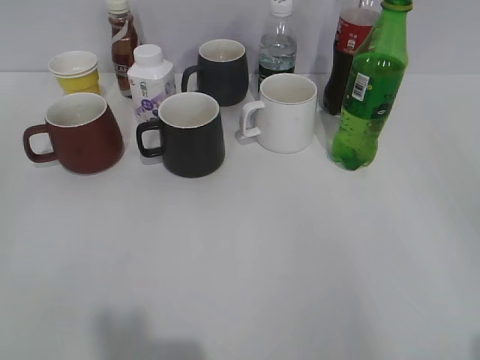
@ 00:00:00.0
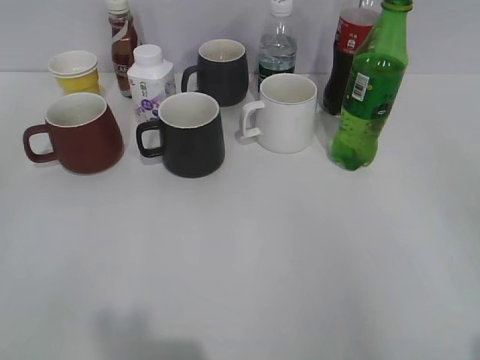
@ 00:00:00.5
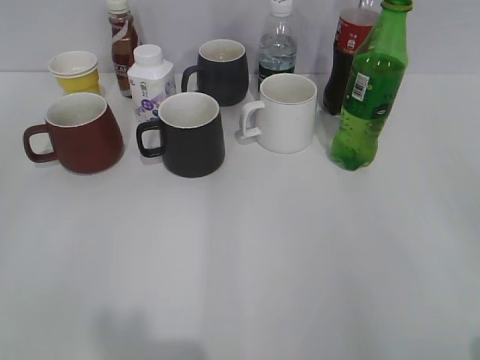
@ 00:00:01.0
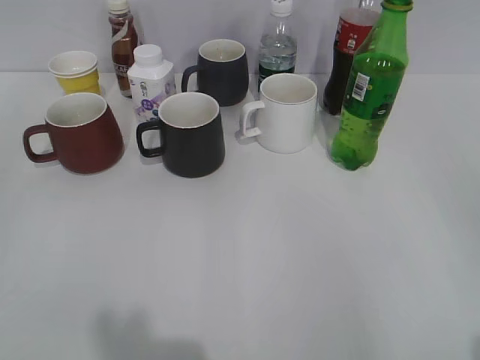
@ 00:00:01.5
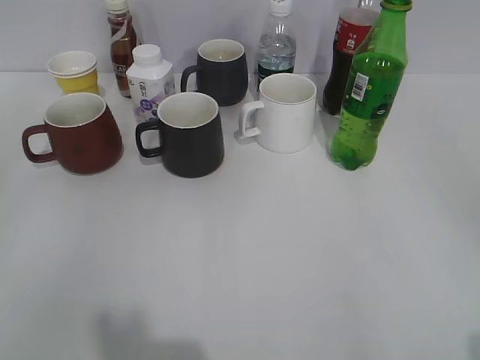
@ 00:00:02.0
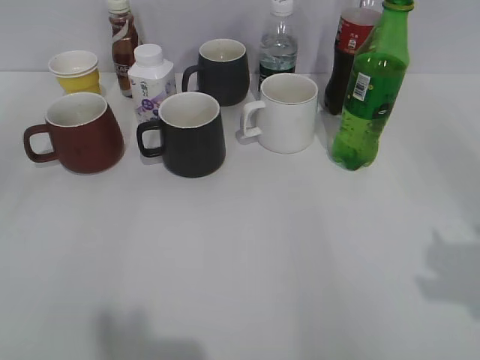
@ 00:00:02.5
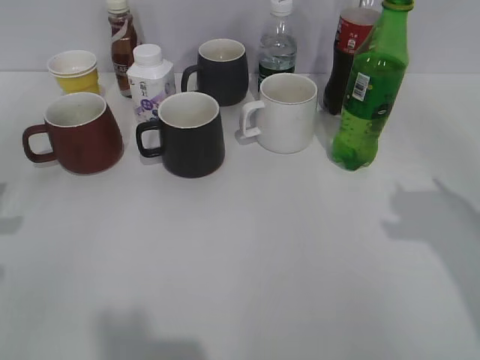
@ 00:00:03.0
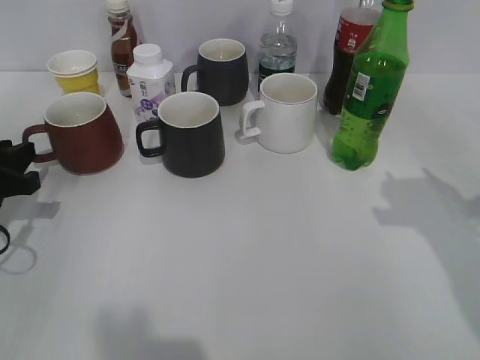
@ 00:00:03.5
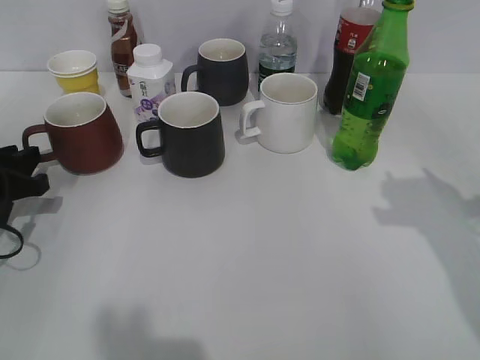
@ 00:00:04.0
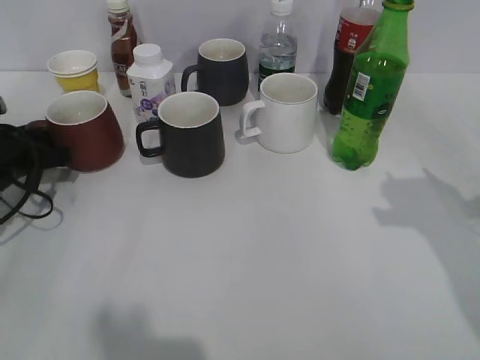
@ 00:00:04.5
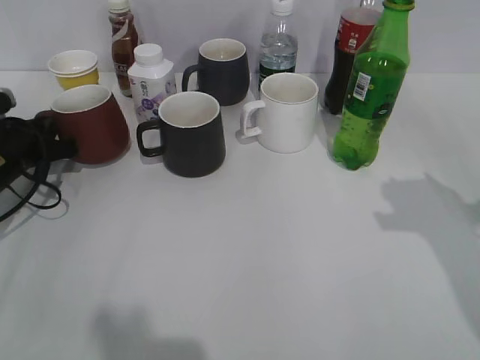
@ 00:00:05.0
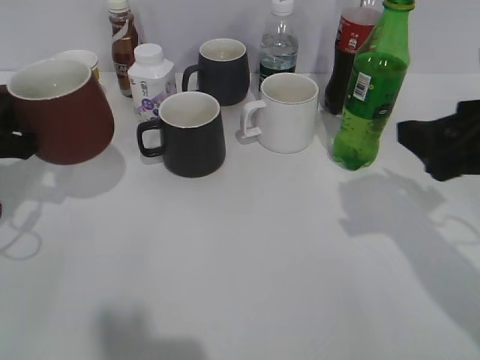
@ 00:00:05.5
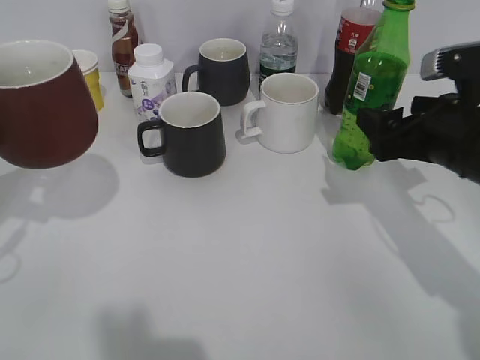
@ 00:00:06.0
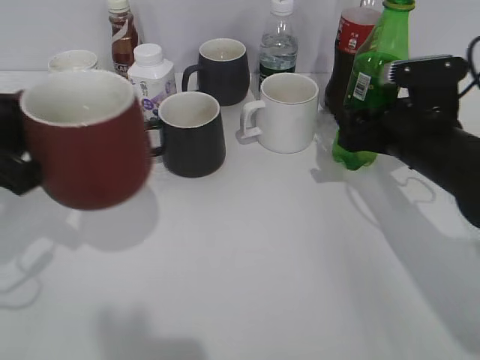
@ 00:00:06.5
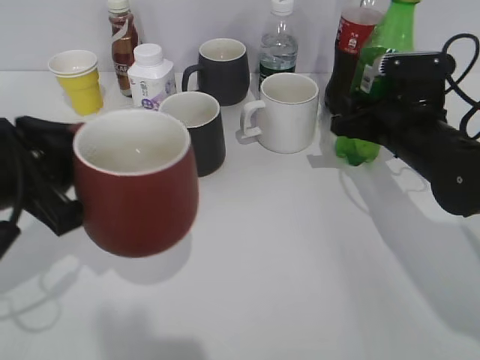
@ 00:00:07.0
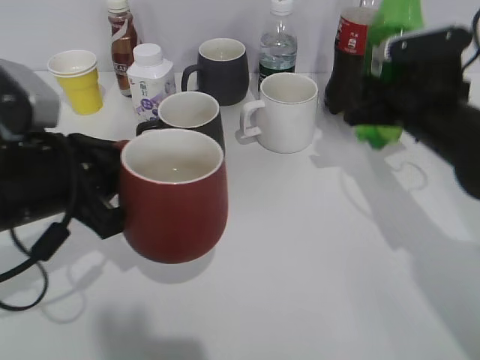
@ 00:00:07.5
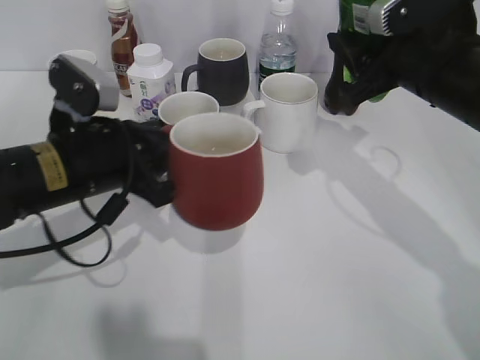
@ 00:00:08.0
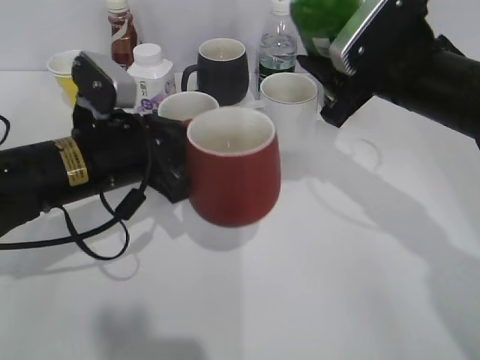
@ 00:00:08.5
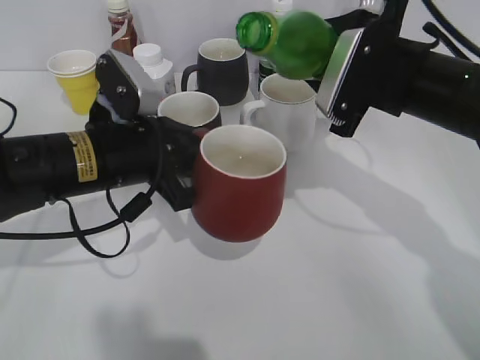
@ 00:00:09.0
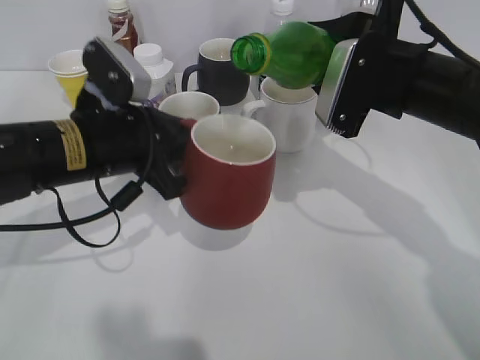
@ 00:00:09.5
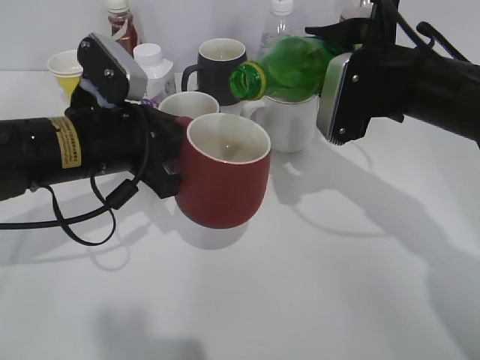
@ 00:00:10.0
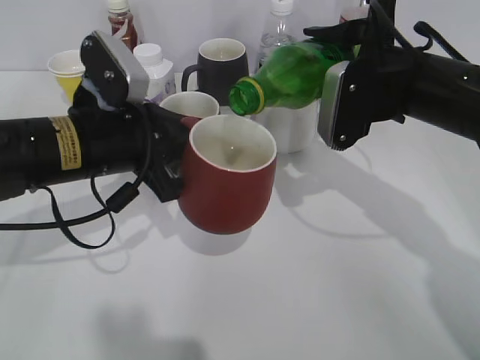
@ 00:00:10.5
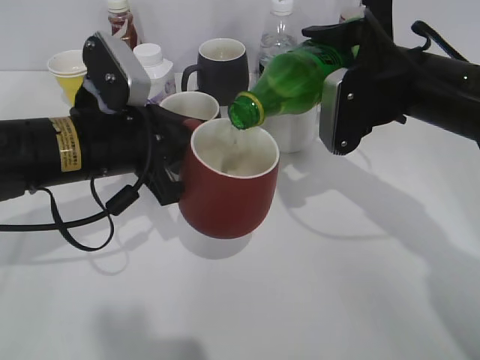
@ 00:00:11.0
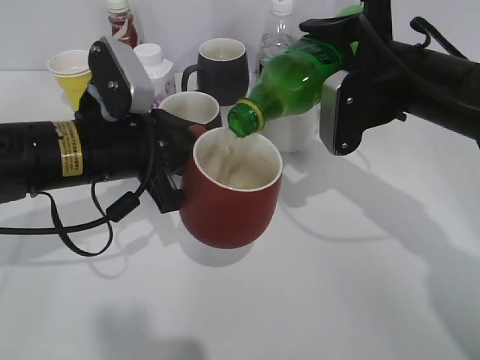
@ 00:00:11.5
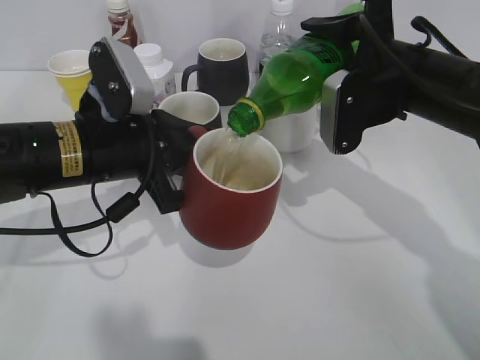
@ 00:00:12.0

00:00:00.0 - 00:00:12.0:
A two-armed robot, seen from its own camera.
Step, 00:00:02.0 - 00:00:04.5: Grasp the red cup with left gripper.
Step, 00:00:05.5 - 00:00:06.5: Grasp the bottle with sprite with right gripper.
00:00:02.0 - 00:00:04.0: The left gripper travels forward and downward by approximately 30 cm. The right gripper shifts about 20 cm forward.
00:00:04.0 - 00:00:06.0: The left gripper shifts roughly 15 cm upward and backward, and closes up. The right gripper moves downward, forward and to the left, about 10 cm, and opens up.
00:00:06.0 - 00:00:08.0: The left gripper is displaced to the right and downward by some 15 cm, while the right gripper ends up approximately 5 cm from where it was, and closes its fingers.
00:00:10.0 - 00:00:12.0: There are only small adjustments of the grippers.

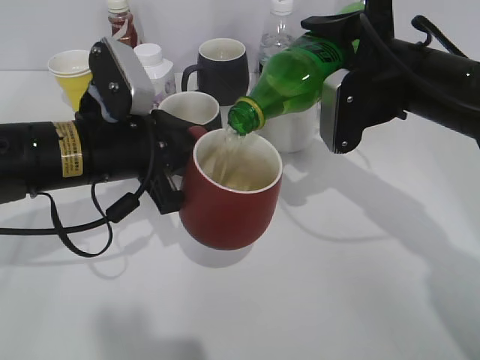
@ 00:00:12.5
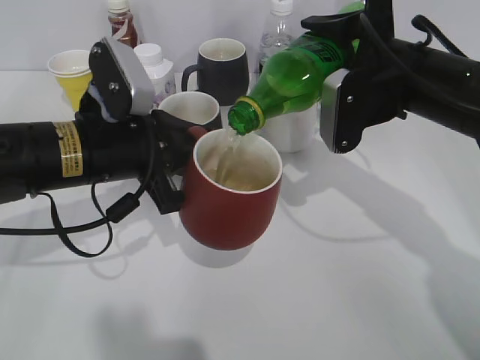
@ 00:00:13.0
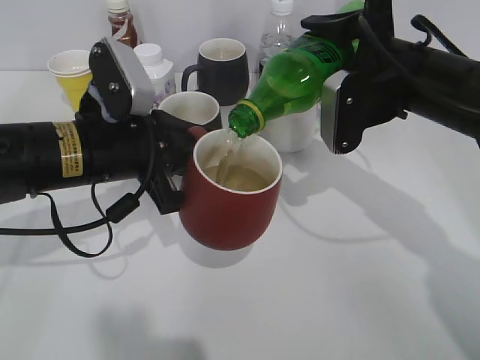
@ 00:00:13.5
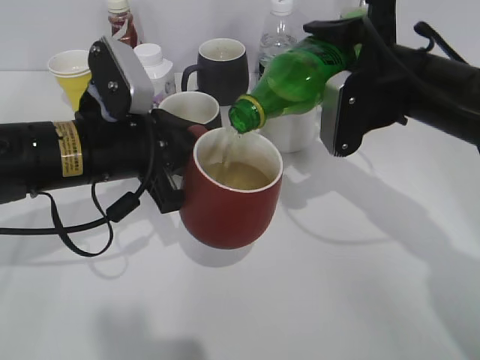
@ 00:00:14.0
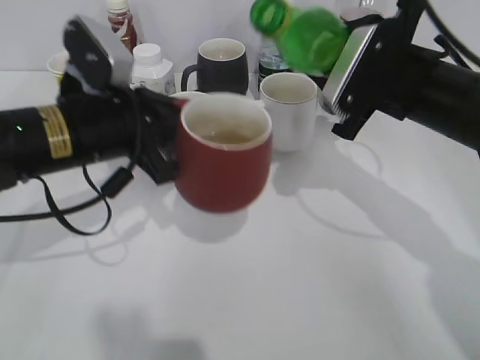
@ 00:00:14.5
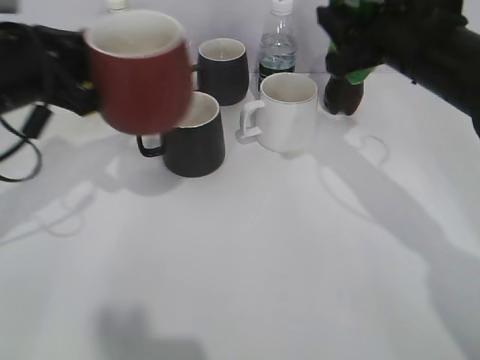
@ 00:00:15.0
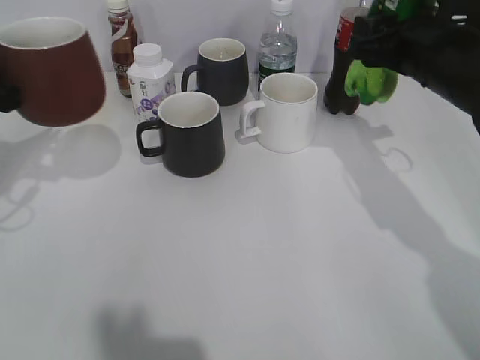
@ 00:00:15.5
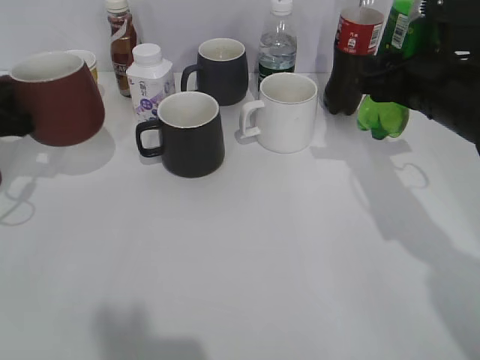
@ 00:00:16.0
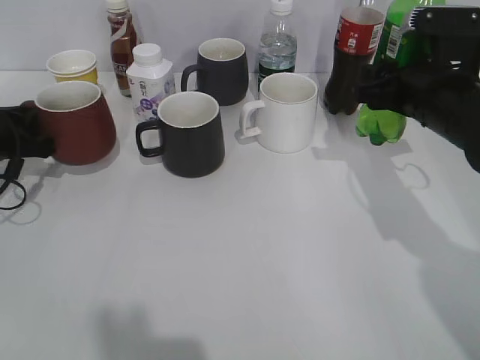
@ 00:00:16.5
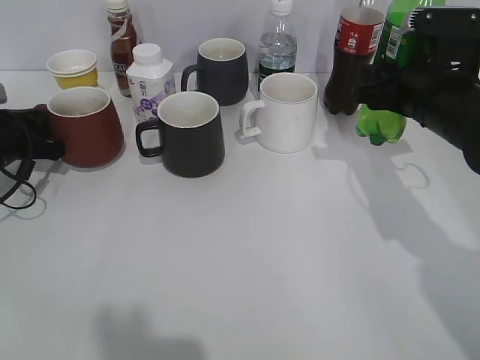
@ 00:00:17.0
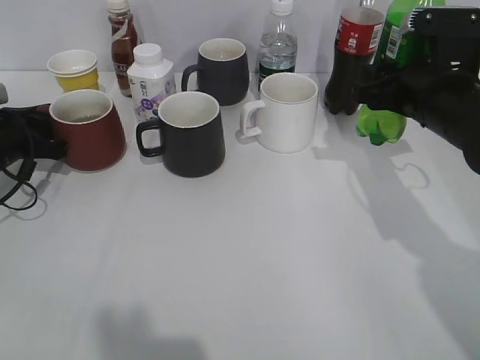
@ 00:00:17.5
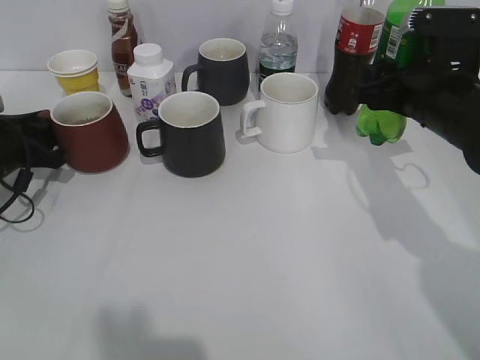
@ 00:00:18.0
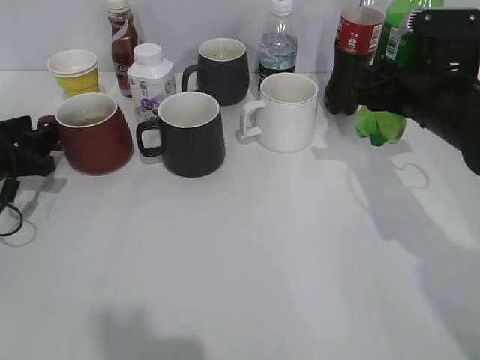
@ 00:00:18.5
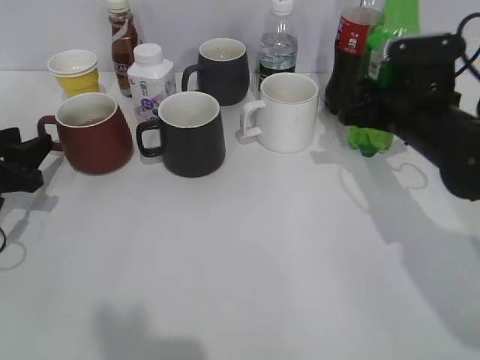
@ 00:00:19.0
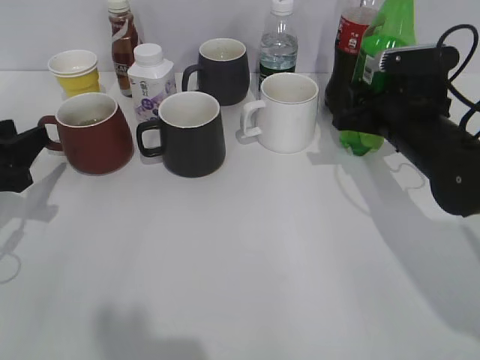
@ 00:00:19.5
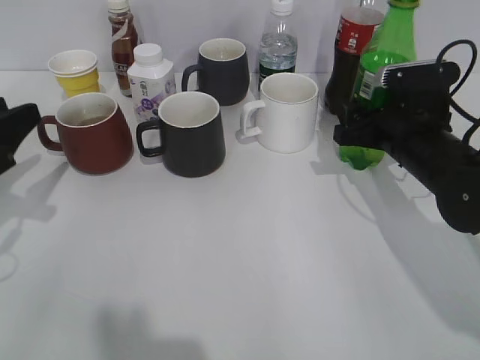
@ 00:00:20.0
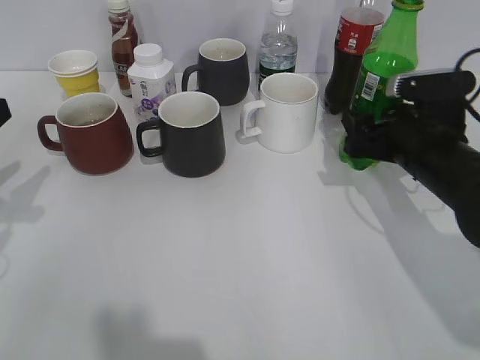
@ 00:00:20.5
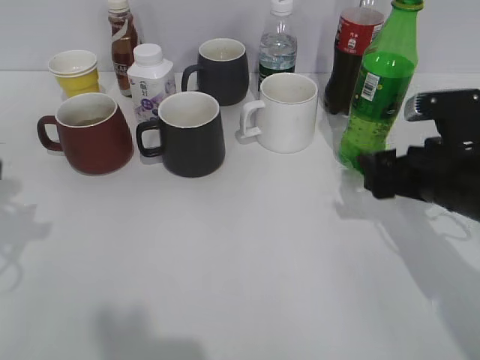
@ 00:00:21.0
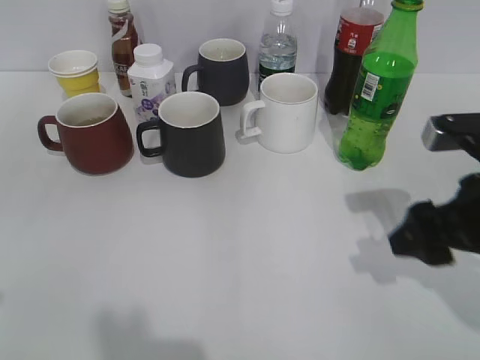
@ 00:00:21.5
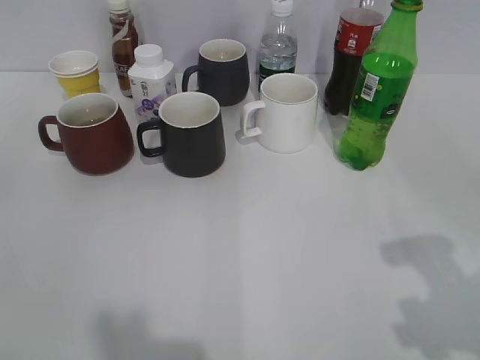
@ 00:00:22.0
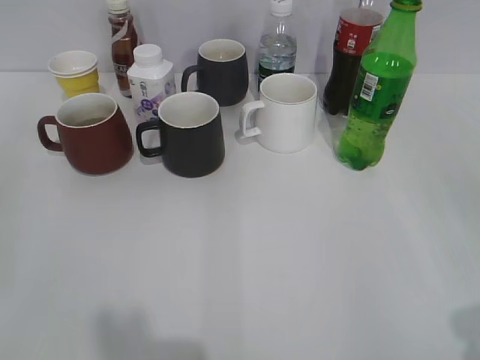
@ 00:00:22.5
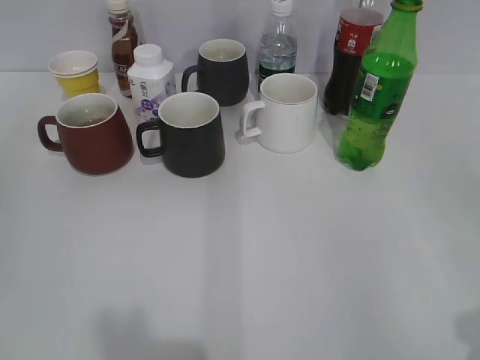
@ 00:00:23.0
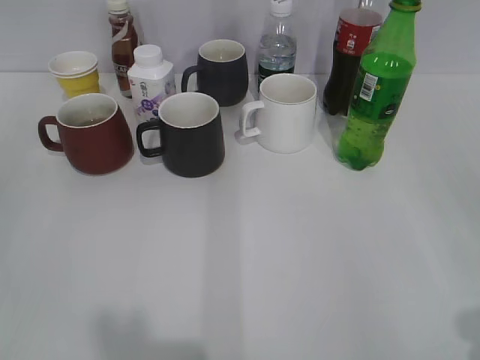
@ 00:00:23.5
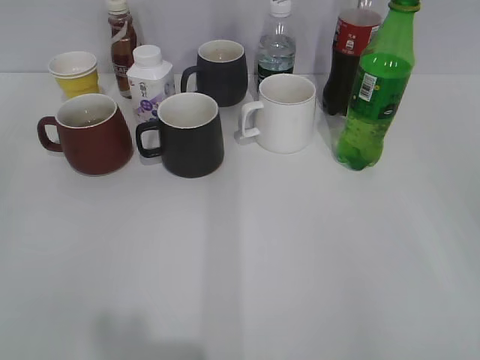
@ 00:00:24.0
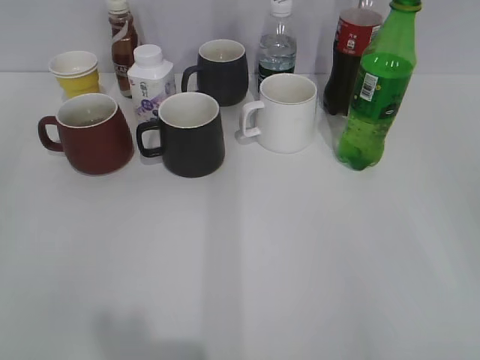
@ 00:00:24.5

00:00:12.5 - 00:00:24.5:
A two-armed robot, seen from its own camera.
Step, 00:00:14.5 - 00:00:18.0: Place the red cup on the table with left gripper.
Step, 00:00:18.5 - 00:00:20.5: Place the sprite bottle on the table with right gripper.
00:00:14.5 - 00:00:16.5: The right gripper ends up about 5 cm from where it was. The left gripper heads to the left and downward, covering approximately 20 cm.
00:00:16.5 - 00:00:18.5: The left gripper opens.
00:00:18.5 - 00:00:20.5: The right gripper moves downward, approximately 5 cm, and opens its fingers. Meanwhile the left gripper goes roughly 15 cm upward and backward.
00:00:20.5 - 00:00:22.5: The right gripper heads backward and upward, covering about 30 cm.

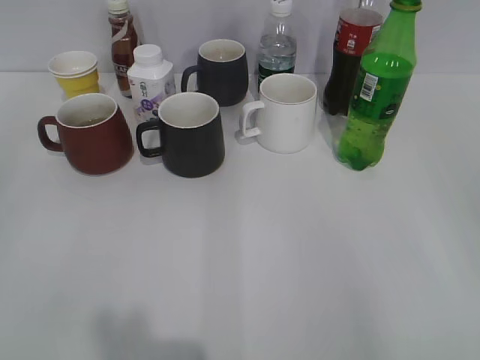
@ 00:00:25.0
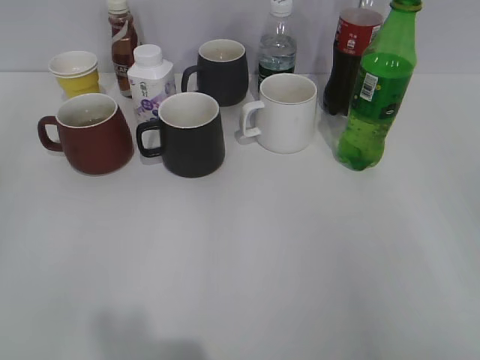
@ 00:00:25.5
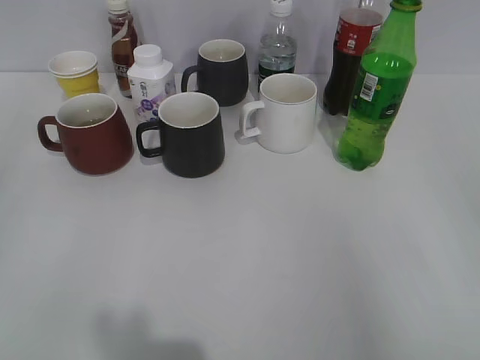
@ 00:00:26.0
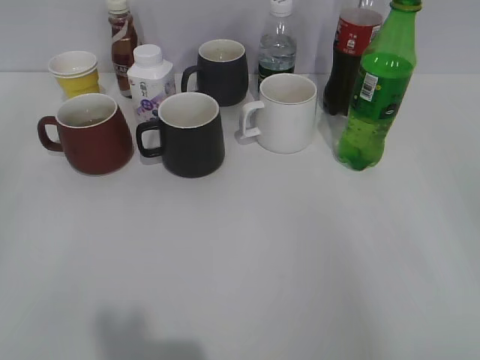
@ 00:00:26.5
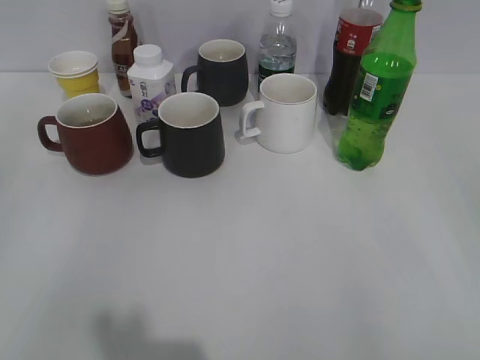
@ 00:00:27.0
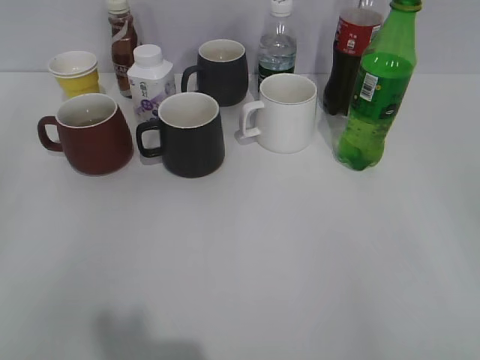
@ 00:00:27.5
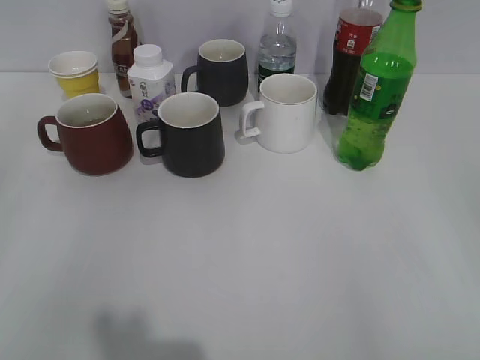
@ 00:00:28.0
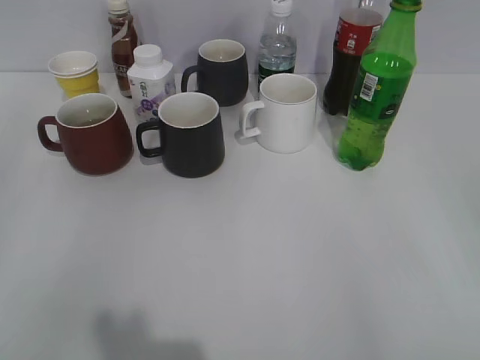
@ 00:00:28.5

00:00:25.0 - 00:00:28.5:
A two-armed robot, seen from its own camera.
00:00:25.0 - 00:00:28.5: Neither gripper changes place.
